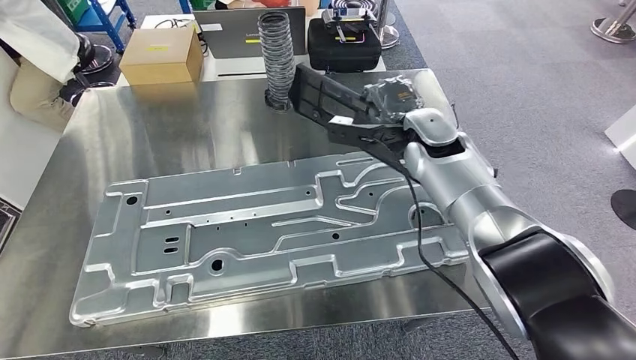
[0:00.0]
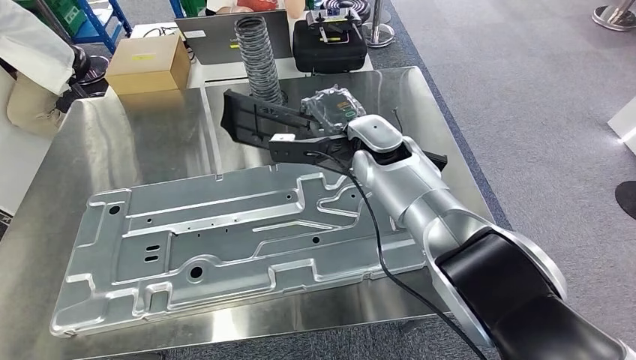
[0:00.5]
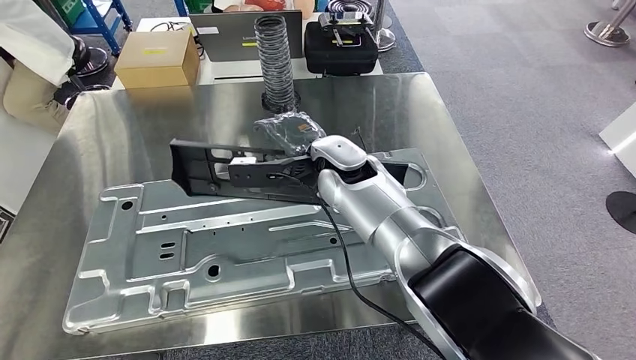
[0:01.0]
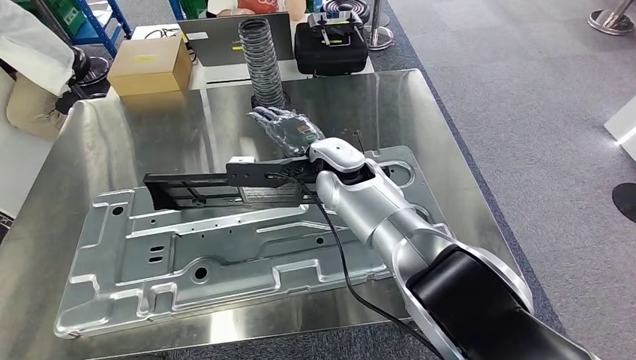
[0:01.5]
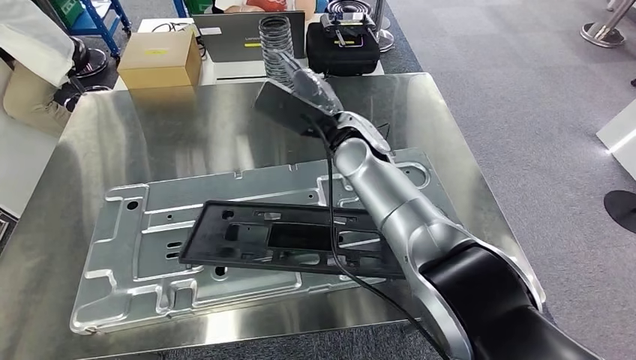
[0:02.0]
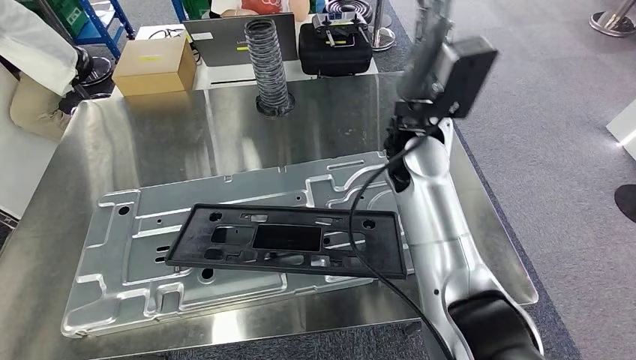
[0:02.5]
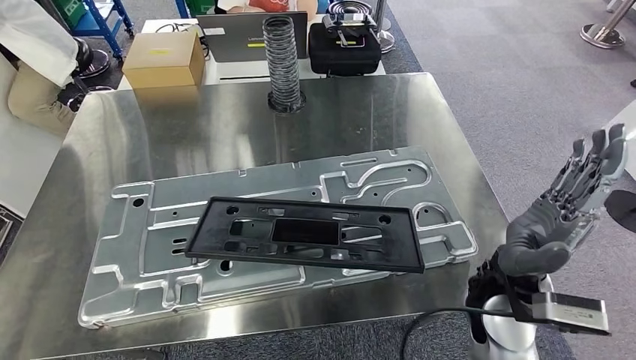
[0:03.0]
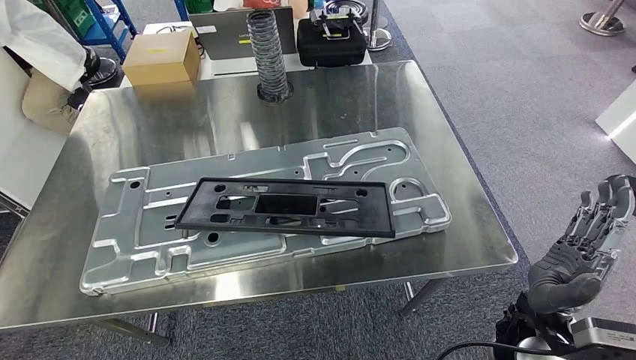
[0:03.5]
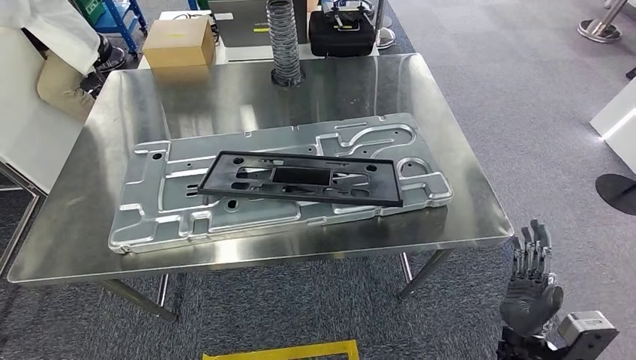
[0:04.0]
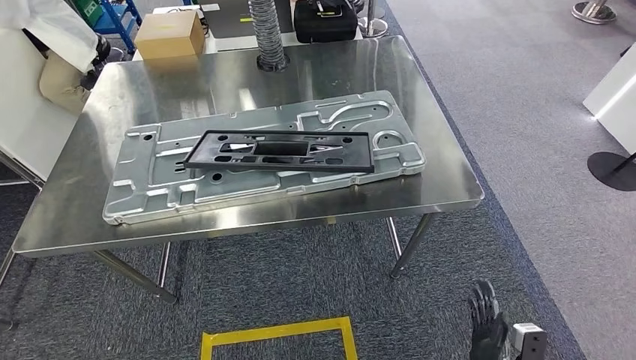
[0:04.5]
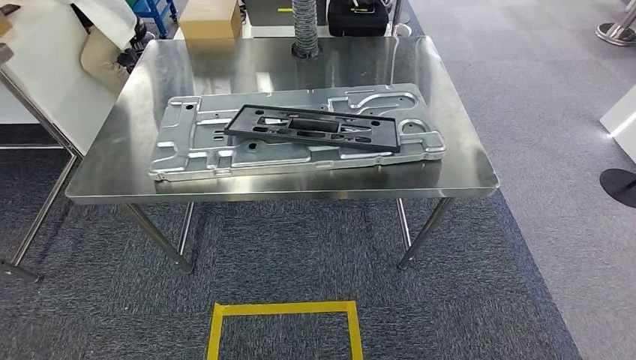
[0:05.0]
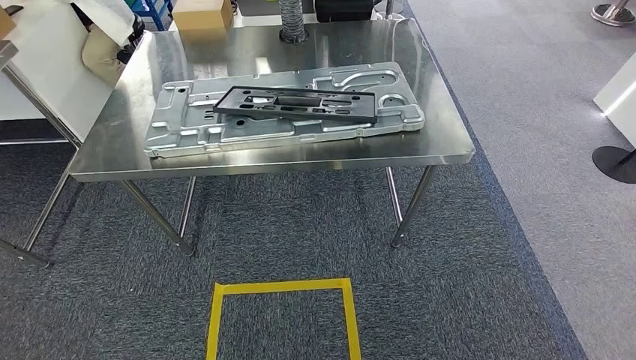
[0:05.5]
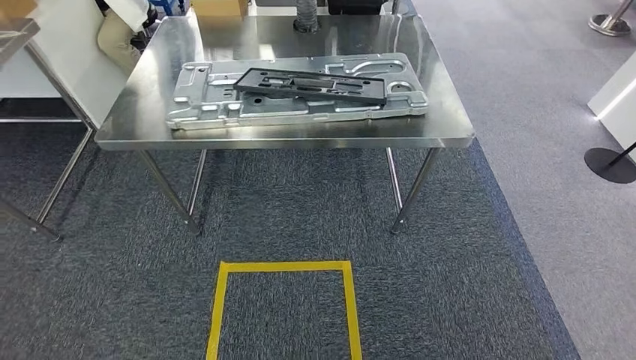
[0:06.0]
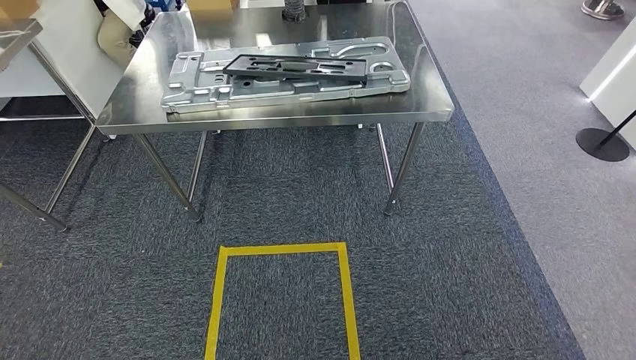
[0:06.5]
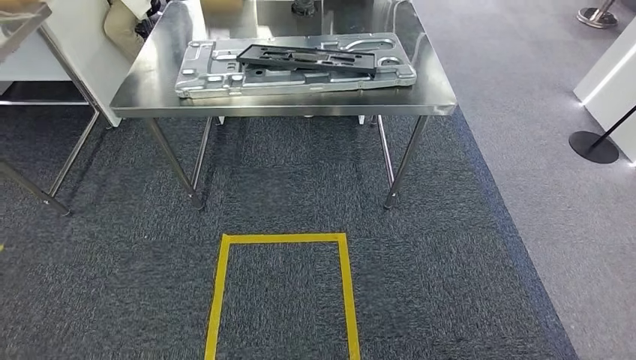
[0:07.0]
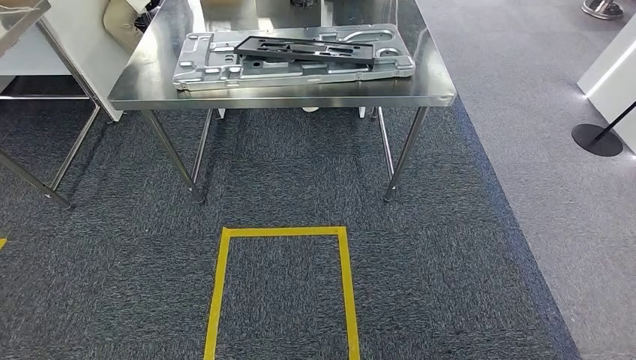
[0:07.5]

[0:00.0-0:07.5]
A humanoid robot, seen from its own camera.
Step, 0:00.0 to 0:03.0: Insert the small component into the corresponding slot on the workbench.
Step, 0:03.5 to 0:07.5: Return to the initial position at the workbench.
